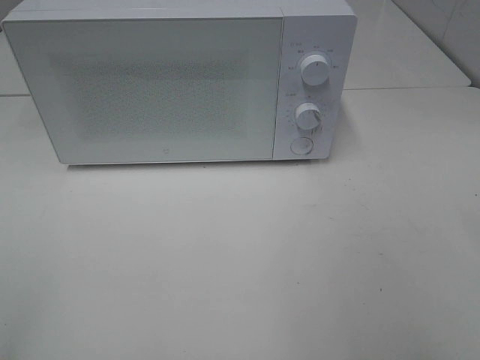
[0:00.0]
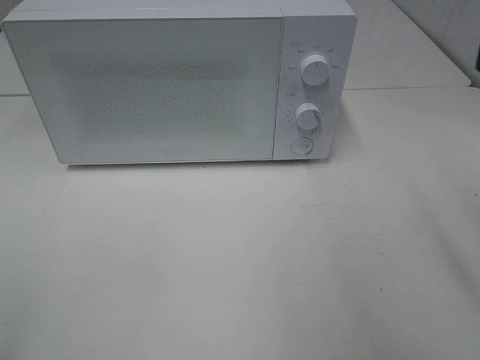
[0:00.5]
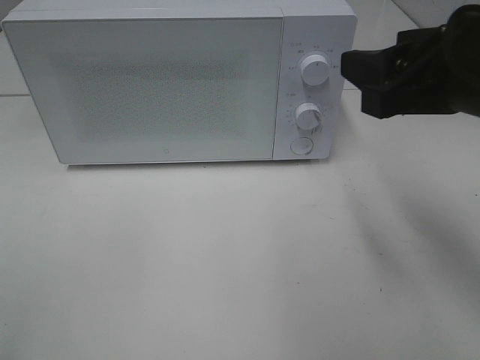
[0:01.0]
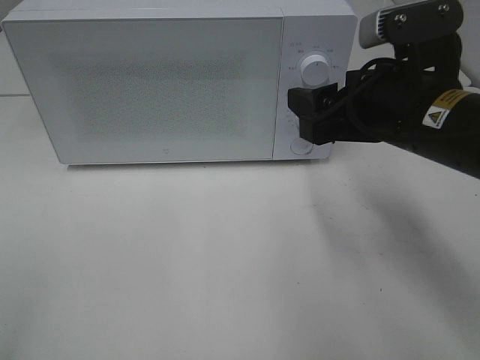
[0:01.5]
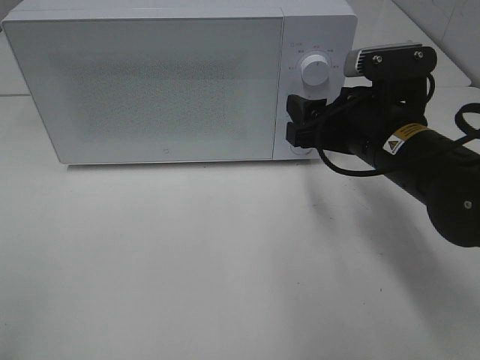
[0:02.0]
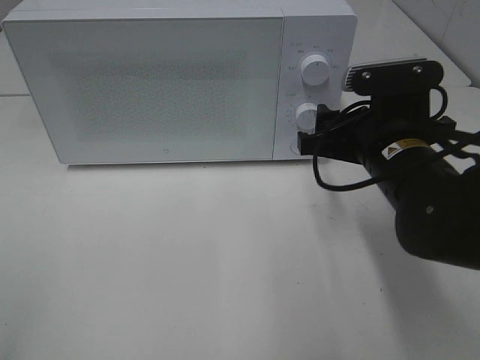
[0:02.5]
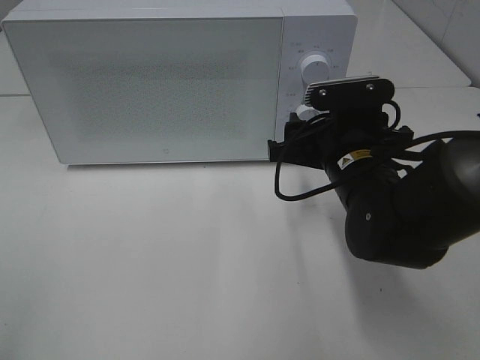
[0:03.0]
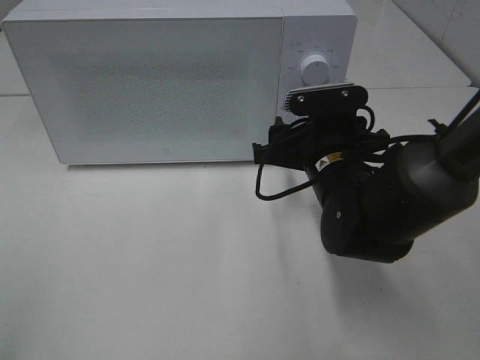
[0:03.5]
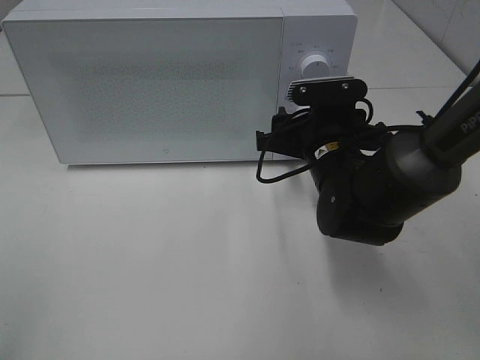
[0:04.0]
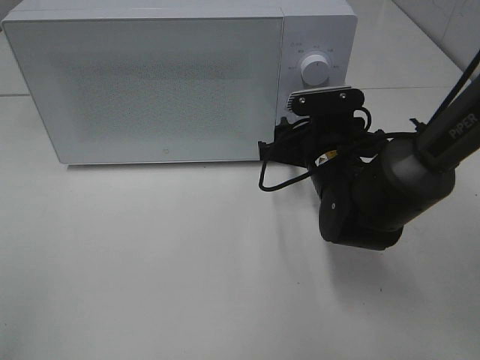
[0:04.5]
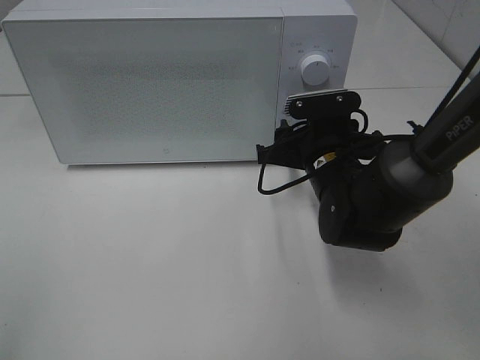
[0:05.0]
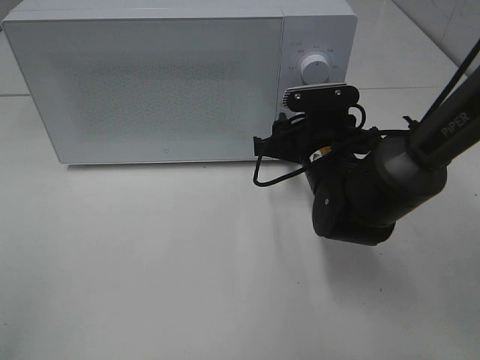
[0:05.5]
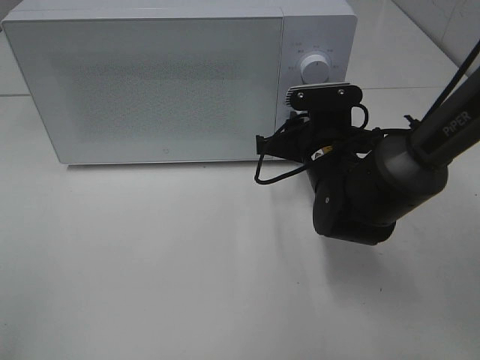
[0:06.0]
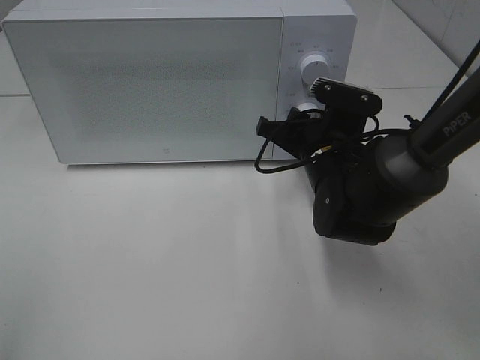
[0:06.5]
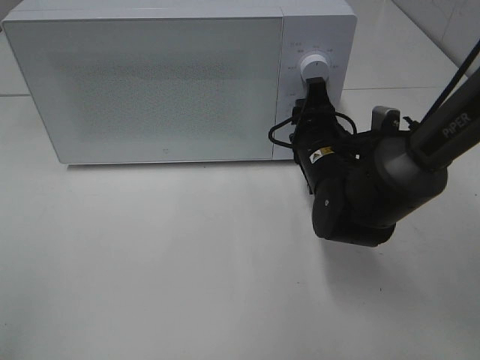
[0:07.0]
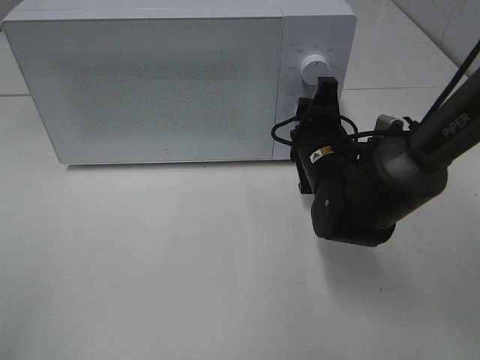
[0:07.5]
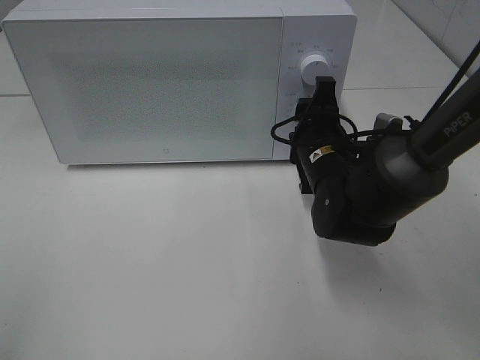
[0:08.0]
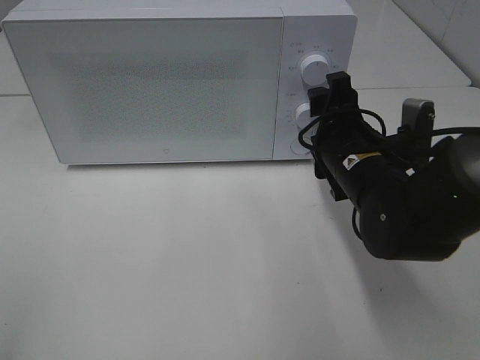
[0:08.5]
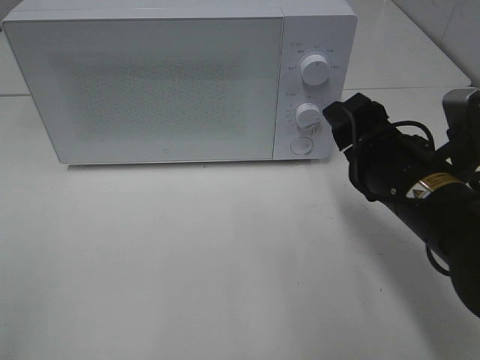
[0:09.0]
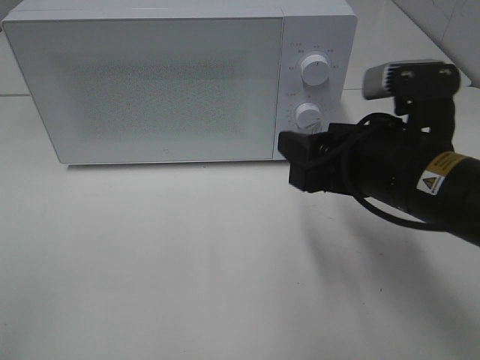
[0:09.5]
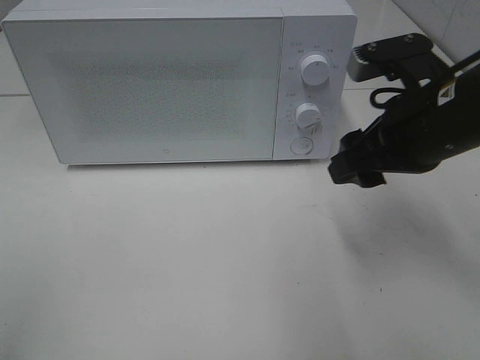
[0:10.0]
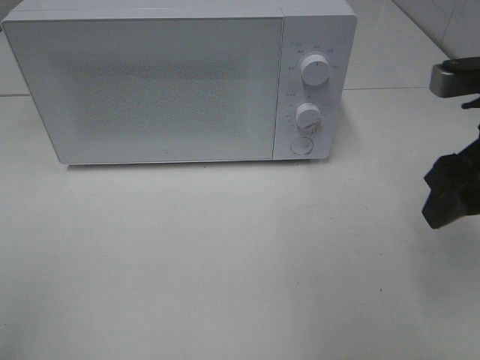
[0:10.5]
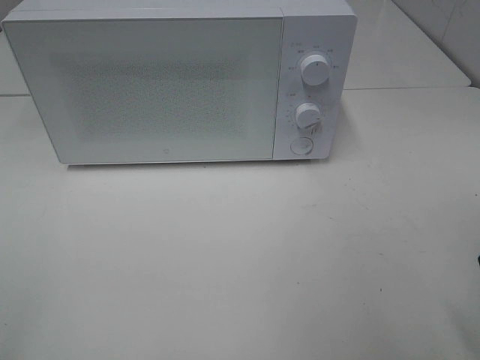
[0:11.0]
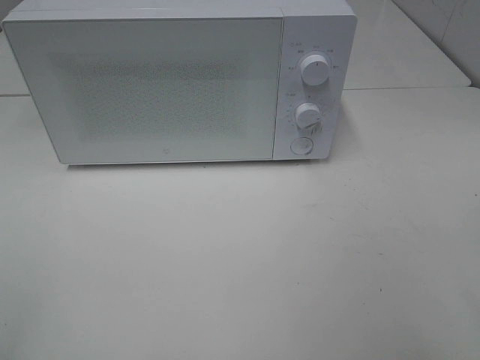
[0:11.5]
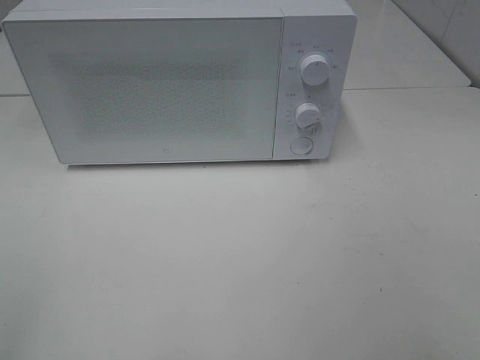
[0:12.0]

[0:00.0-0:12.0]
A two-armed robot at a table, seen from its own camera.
Task of the whole recording: Heat Sandwich.
Step, 0:00.0 to 0:08.5: Right hand: twist timer button.
0:00.0 to 0:02.0: The right gripper goes roughly 30 cm forward, downward and to the left.
0:02.0 to 0:04.0: The right gripper shifts about 5 cm downward.
0:04.0 to 0:06.0: The right gripper closes up.
0:08.0 to 0:10.0: The right gripper goes some 15 cm upward, backward and to the right.
0:10.0 to 0:12.0: The right gripper travels backward by approximately 25 cm.

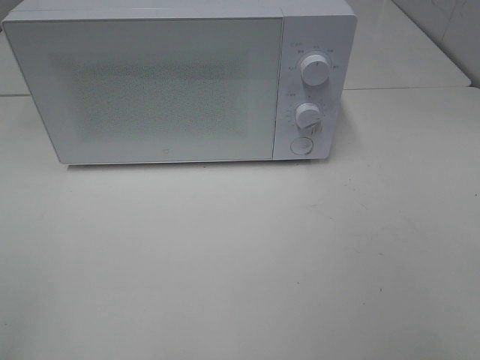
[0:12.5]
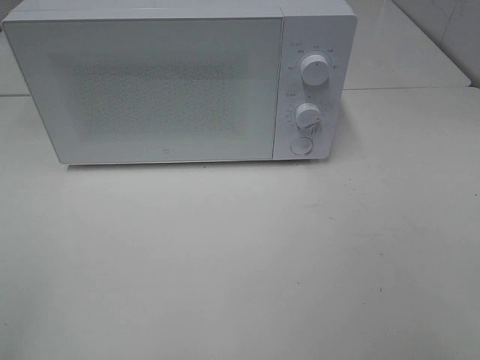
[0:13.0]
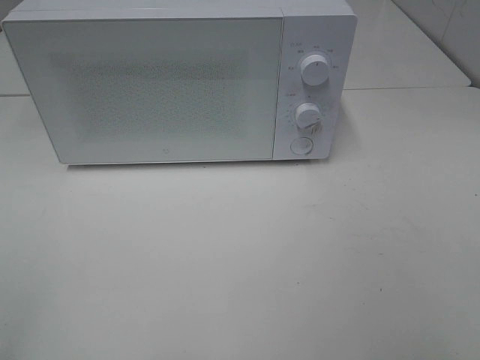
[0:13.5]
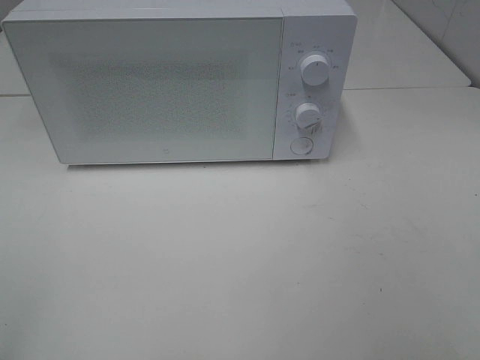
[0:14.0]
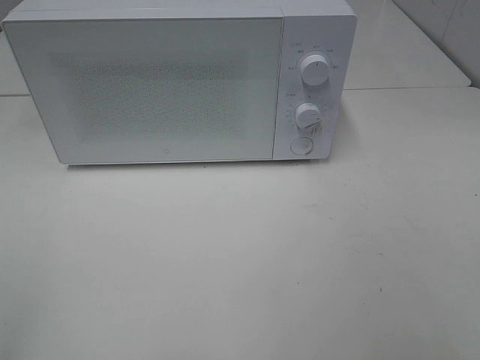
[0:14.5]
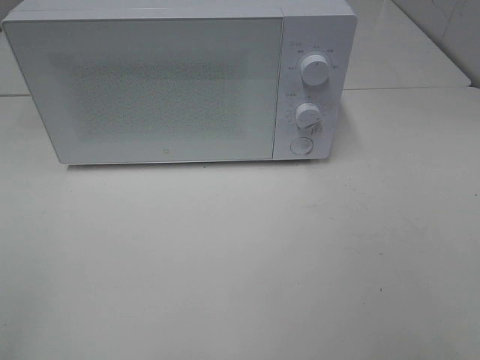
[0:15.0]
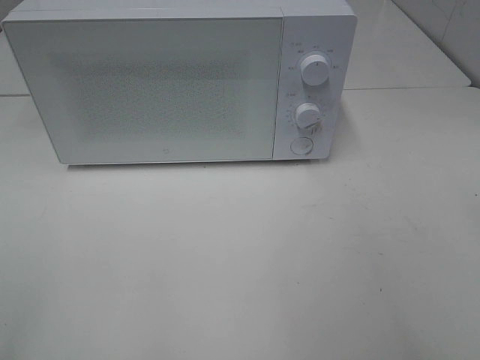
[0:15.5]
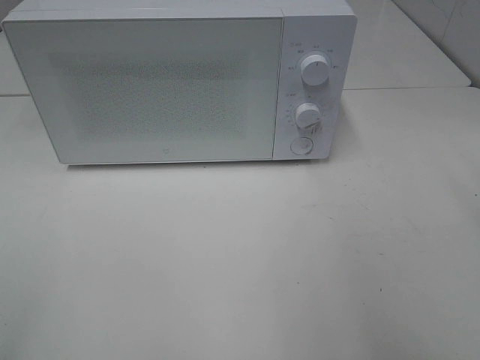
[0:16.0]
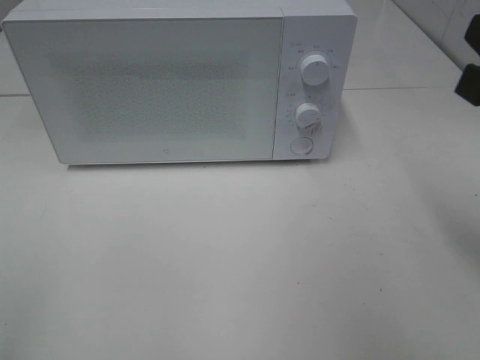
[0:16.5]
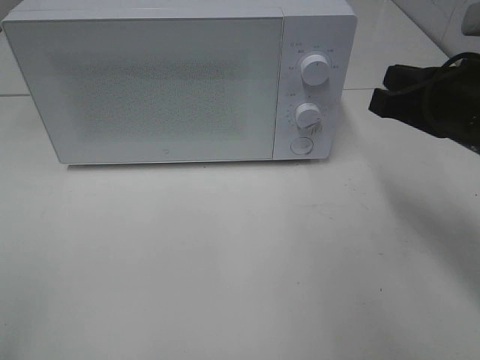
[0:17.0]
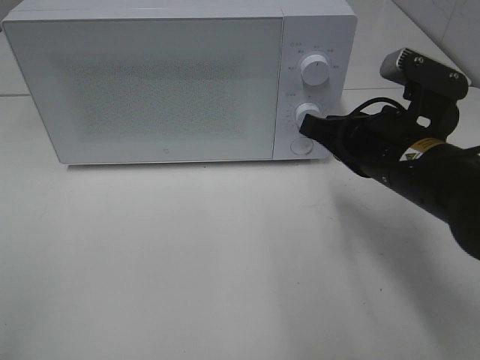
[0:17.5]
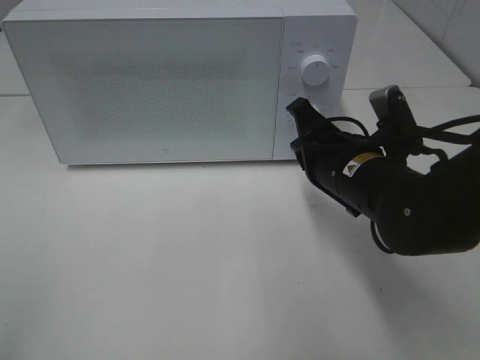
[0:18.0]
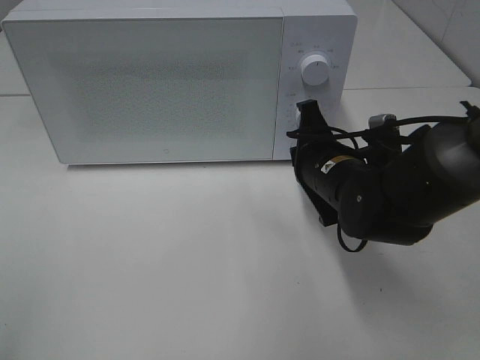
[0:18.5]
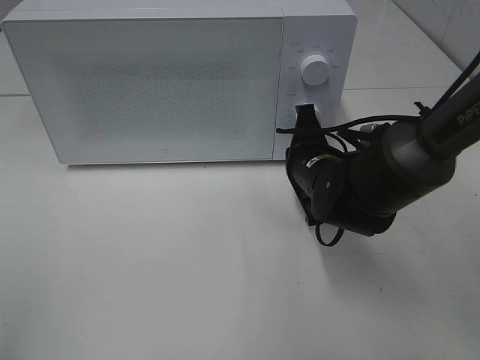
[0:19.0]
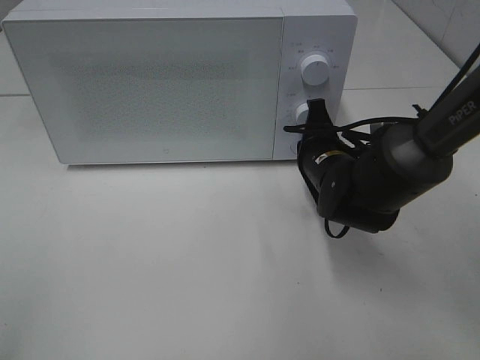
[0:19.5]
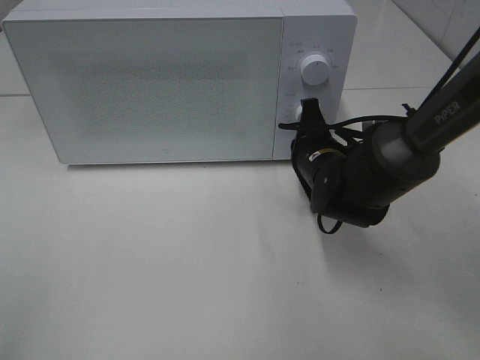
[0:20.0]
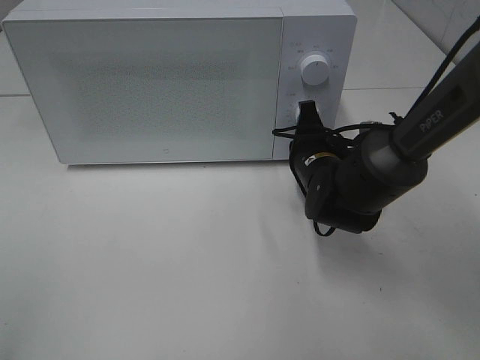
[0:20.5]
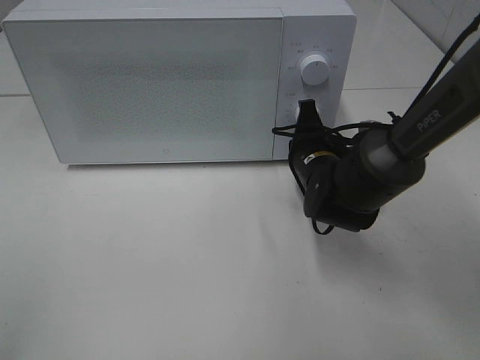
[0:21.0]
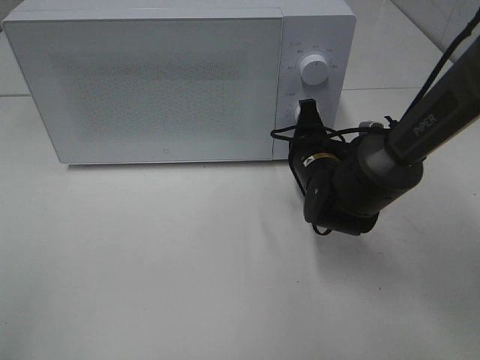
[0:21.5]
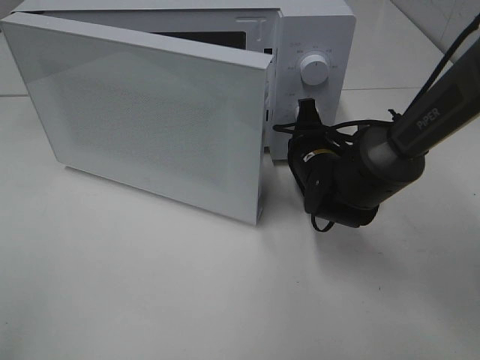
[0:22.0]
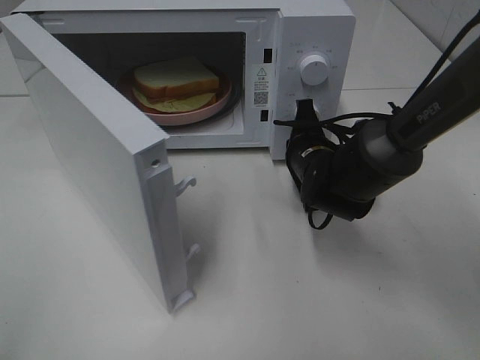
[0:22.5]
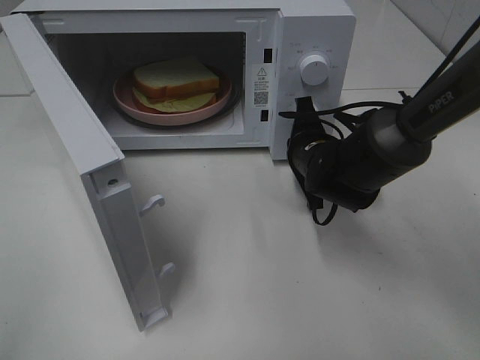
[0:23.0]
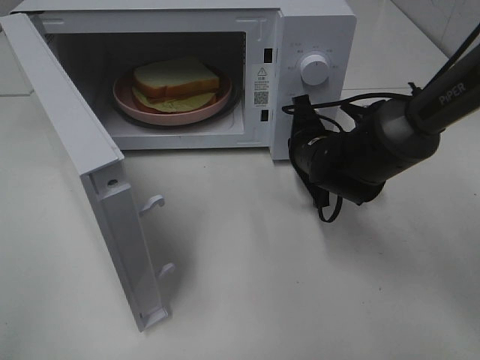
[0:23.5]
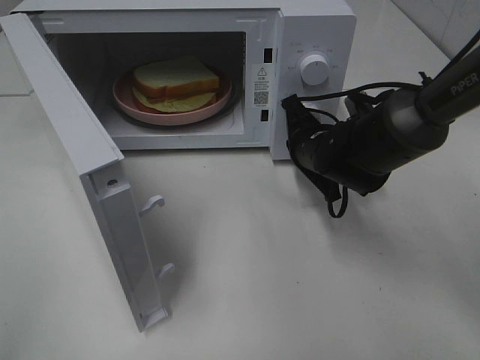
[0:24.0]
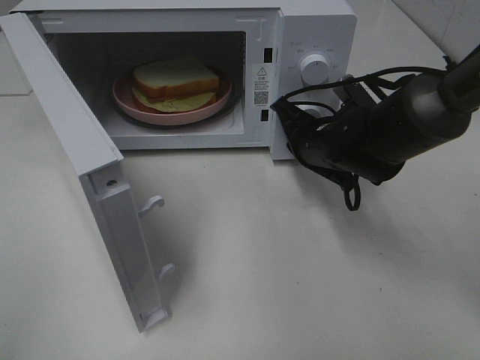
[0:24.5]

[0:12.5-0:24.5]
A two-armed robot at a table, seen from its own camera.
Task of the whole recording: Heat Sandwich.
0:14.5 to 0:16.5: The right gripper heads forward, covering approximately 15 cm, and closes.
0:16.5 to 0:18.5: The right gripper travels downward, forward and to the left by roughly 25 cm.
0:18.5 to 0:20.5: The right gripper goes about 5 cm forward.

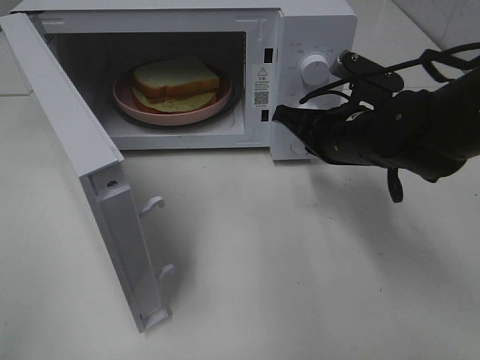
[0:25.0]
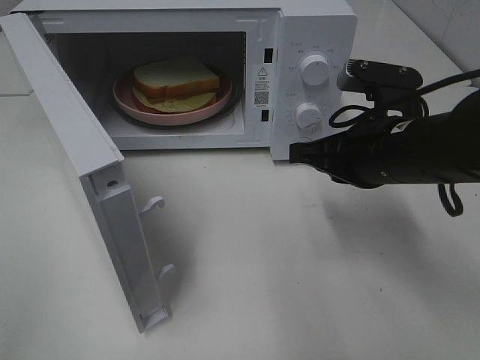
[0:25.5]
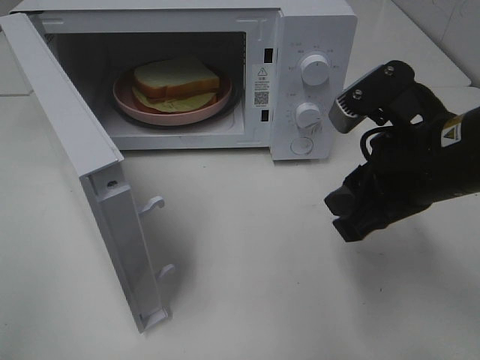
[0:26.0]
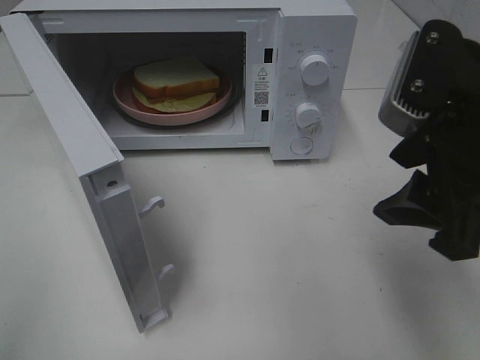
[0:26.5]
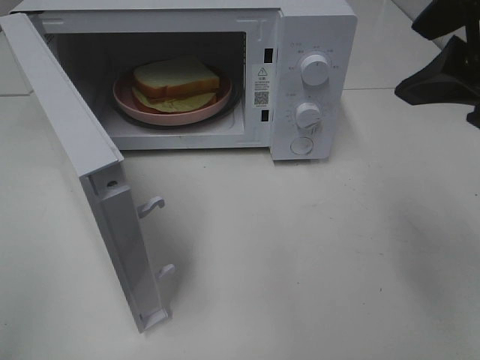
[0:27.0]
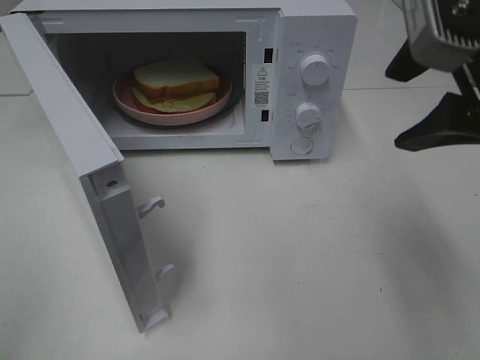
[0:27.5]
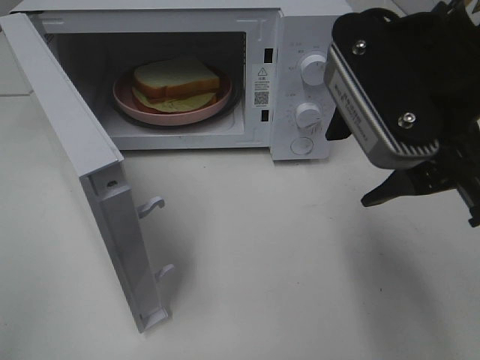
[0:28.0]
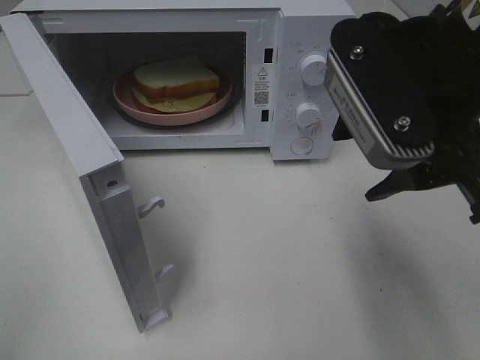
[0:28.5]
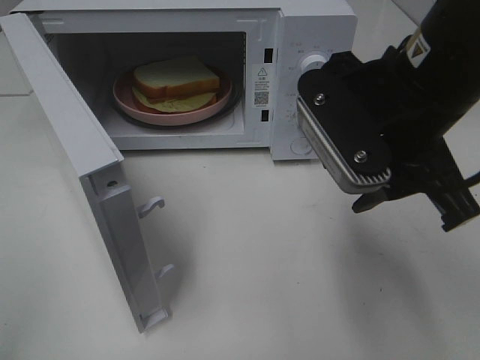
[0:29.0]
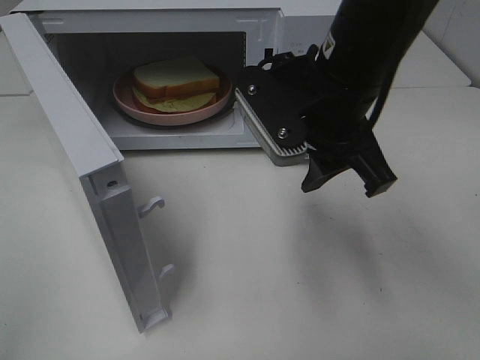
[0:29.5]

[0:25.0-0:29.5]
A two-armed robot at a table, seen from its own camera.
Task of the whole recording: Heat Sandwich.
0:25.0 to 0:27.0: The right gripper heads upward and backward, covering some 25 cm, and opens.
0:27.0 to 0:29.5: The right gripper shifts about 15 cm downward, to the left and forward.
